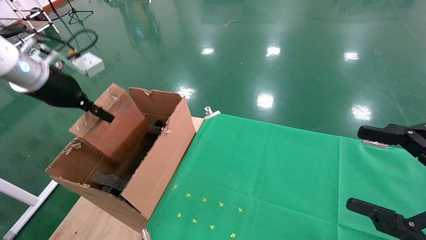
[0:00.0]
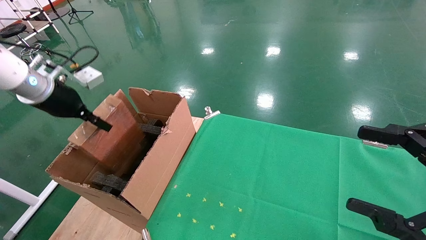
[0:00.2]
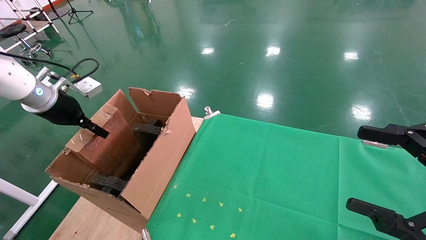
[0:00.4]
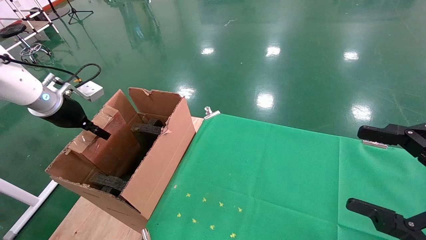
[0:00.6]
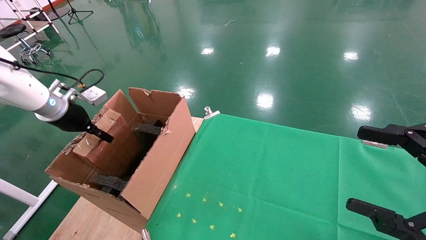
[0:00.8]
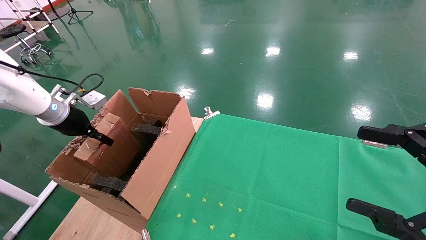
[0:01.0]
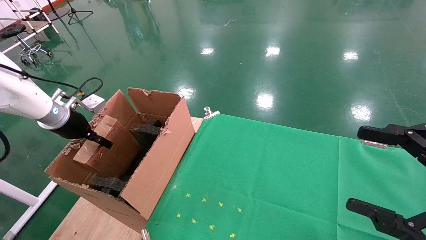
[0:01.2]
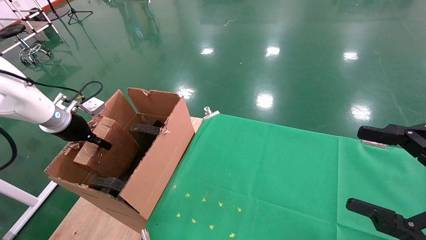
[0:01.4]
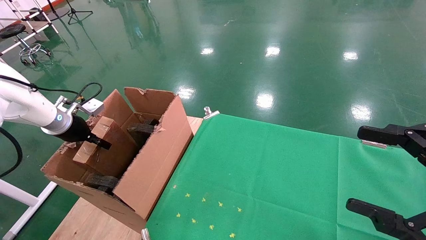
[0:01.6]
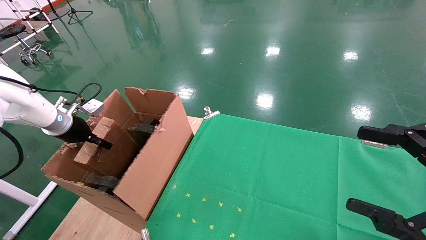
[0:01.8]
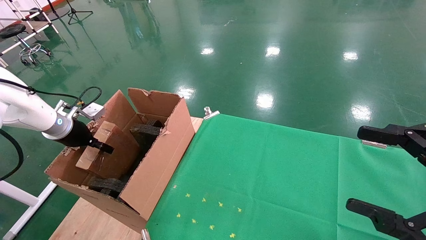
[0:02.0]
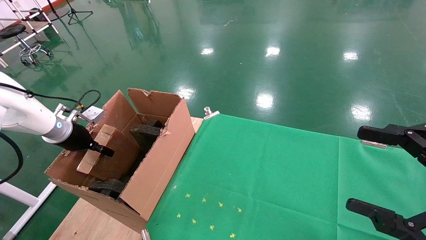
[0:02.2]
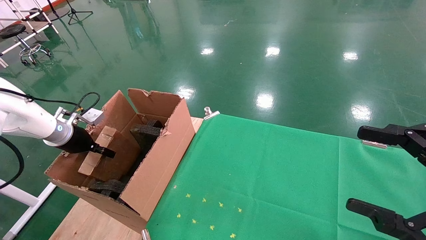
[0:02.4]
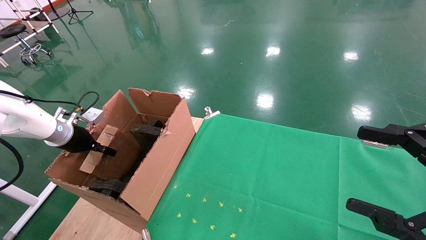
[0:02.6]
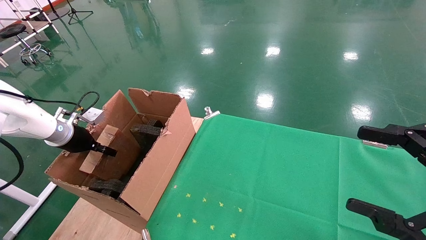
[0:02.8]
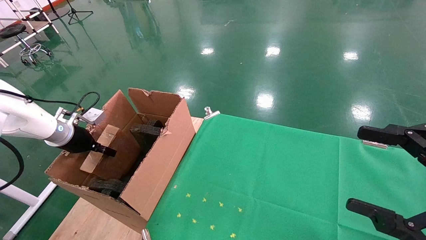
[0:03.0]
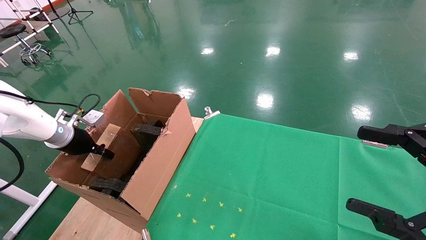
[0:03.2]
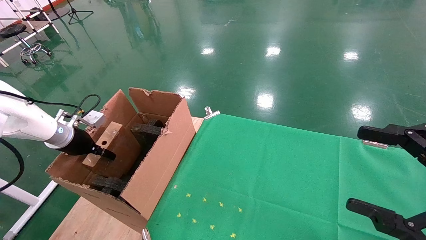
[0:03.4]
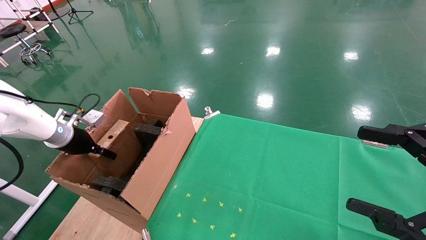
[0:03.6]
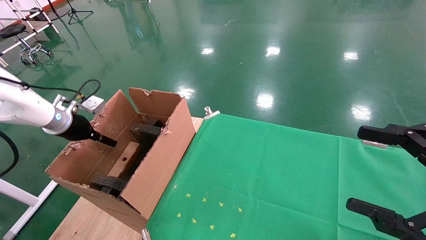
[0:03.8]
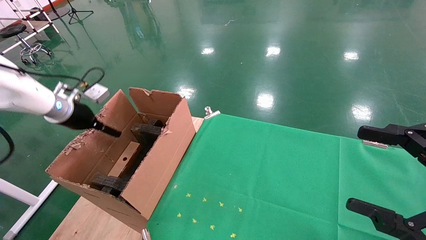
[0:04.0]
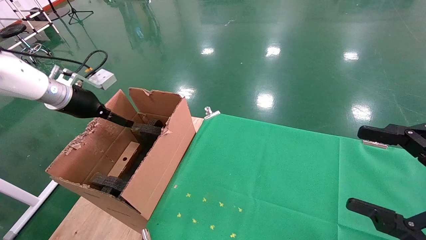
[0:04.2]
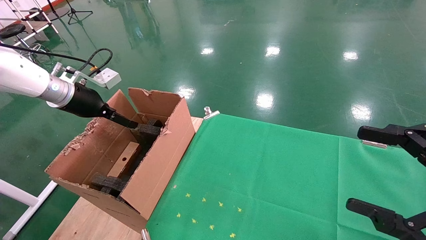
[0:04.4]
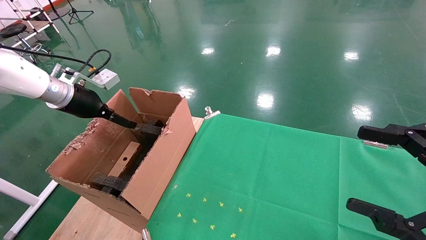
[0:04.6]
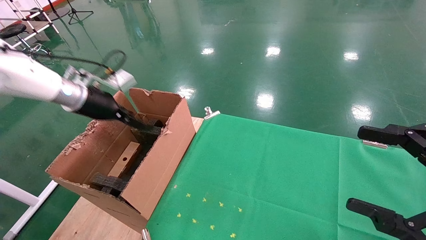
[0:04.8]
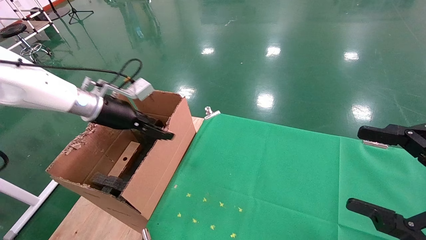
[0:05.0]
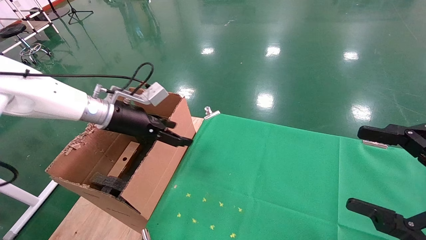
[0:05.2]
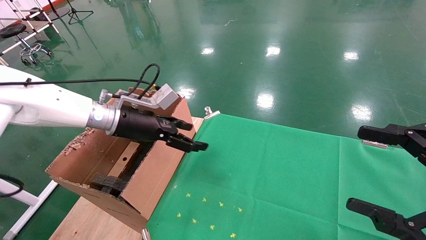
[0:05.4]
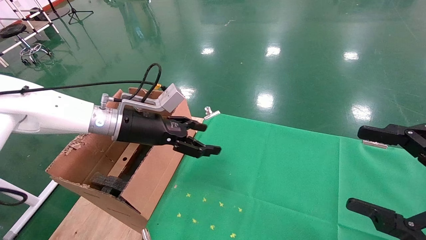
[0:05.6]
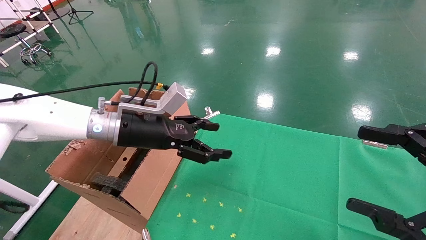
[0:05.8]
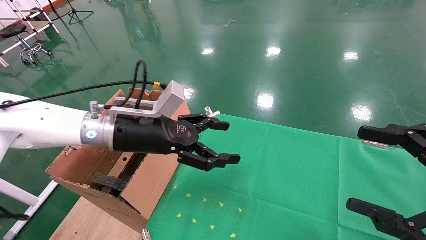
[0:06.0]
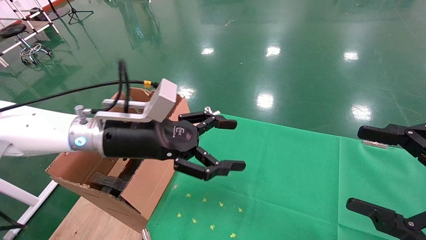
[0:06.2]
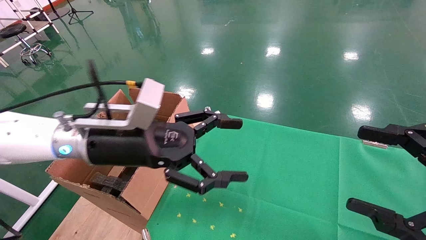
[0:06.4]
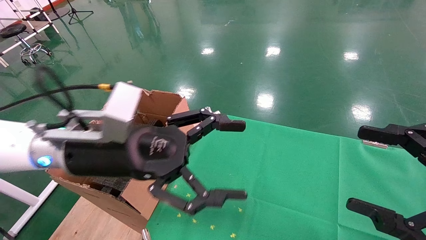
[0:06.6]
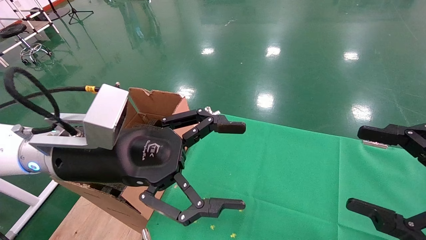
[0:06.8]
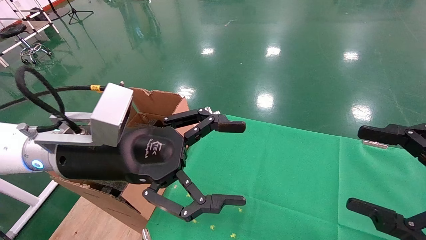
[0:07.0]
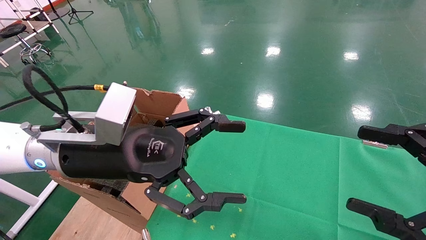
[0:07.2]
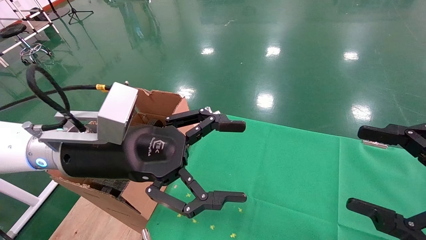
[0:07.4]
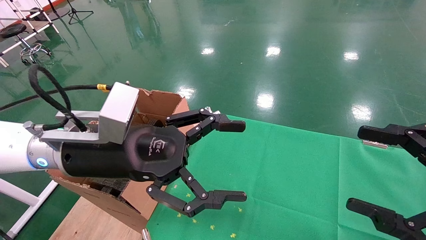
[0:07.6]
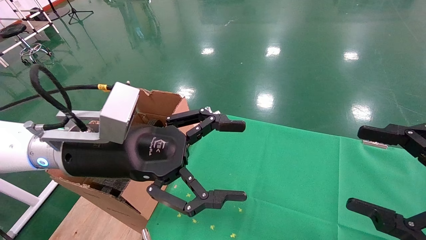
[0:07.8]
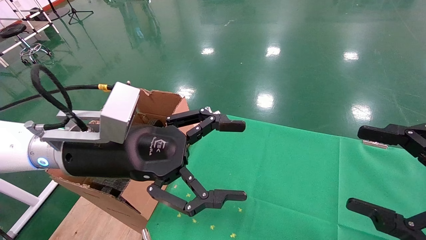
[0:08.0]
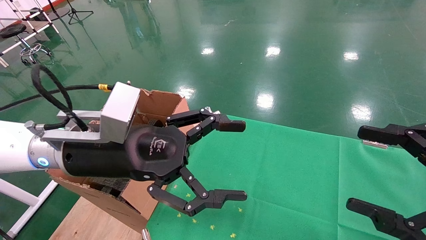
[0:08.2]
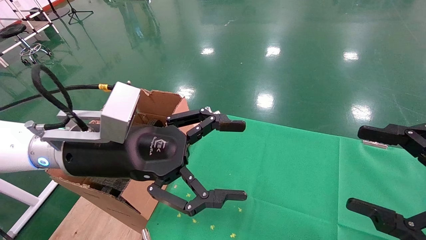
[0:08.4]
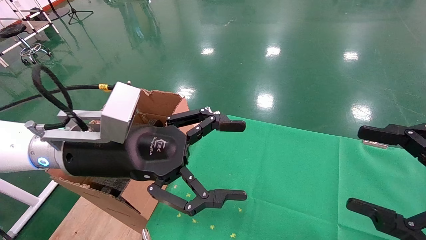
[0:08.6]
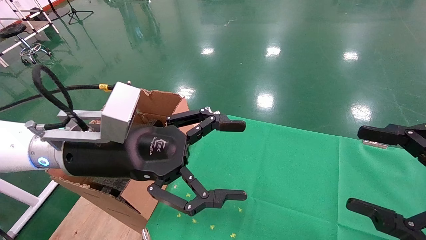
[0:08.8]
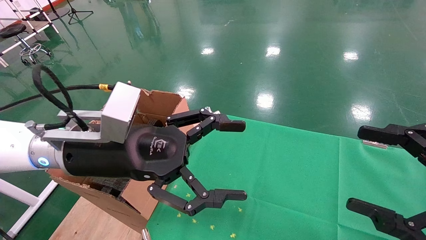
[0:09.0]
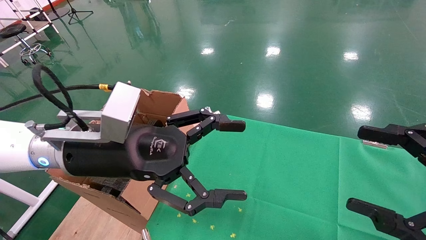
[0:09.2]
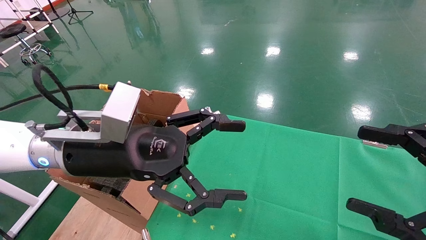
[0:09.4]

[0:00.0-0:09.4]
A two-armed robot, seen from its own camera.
Task of the whole recording: using a robotic arm to pick up a cardboard box and palace it the carton.
Step, 0:00.0 to 0:04.2: Place the mouse and the power cord paper box into the container.
0:00.0 to 0:01.6: The left gripper shifts approximately 15 cm downward, to the left and forward.
0:01.6 to 0:03.2: The grippers stay close to where they were, moving slightly.
0:03.2 to 0:04.8: The left gripper goes about 15 cm to the right and upward, and opens up.
0:04.8 to 0:06.2: The left gripper heads to the right and backward, covering approximately 20 cm.
0:06.2 to 0:07.8: The left gripper is displaced backward by roughly 5 cm.
0:07.8 to 0:09.4: Both grippers stay put.
